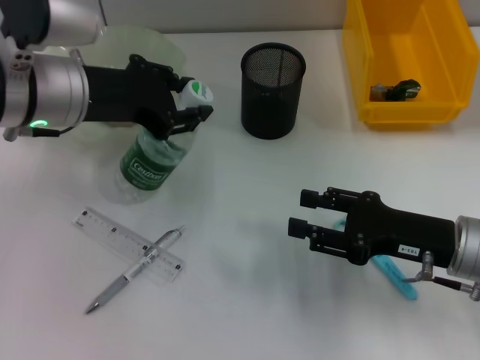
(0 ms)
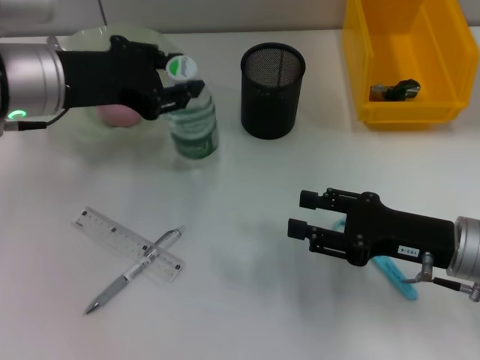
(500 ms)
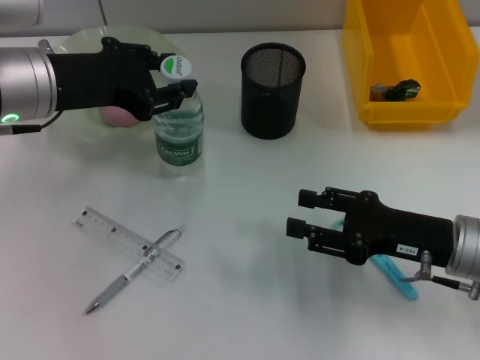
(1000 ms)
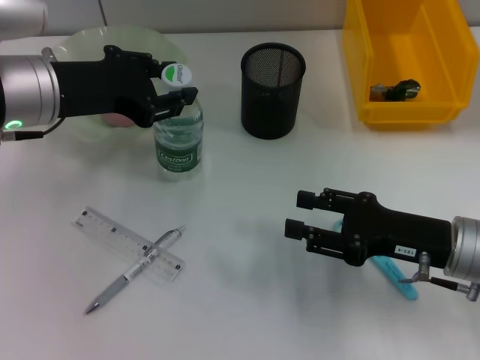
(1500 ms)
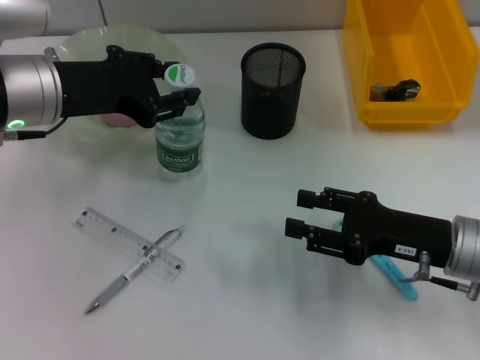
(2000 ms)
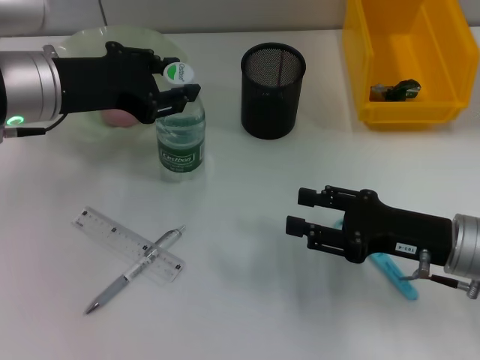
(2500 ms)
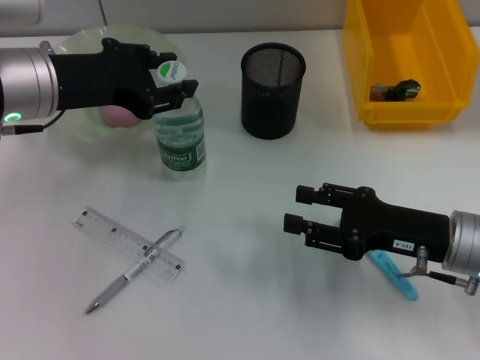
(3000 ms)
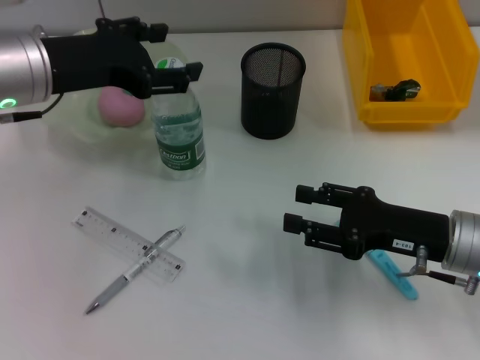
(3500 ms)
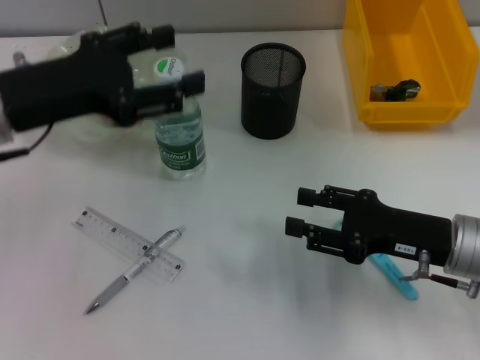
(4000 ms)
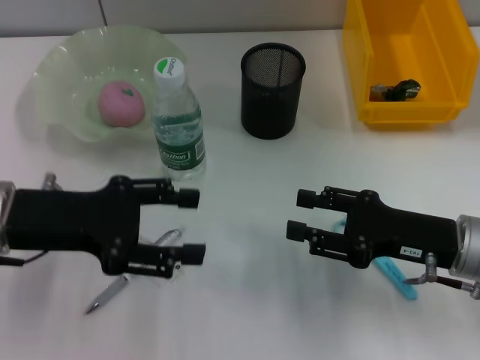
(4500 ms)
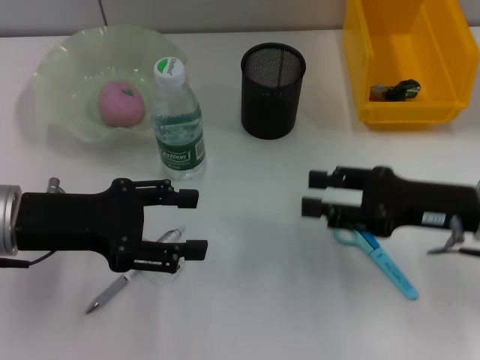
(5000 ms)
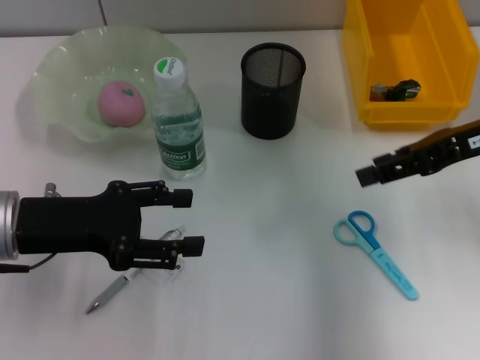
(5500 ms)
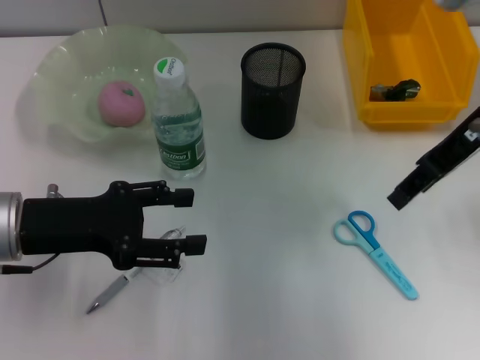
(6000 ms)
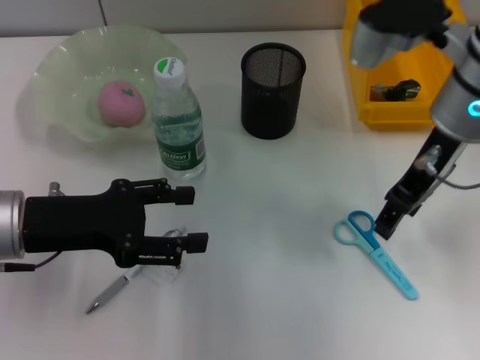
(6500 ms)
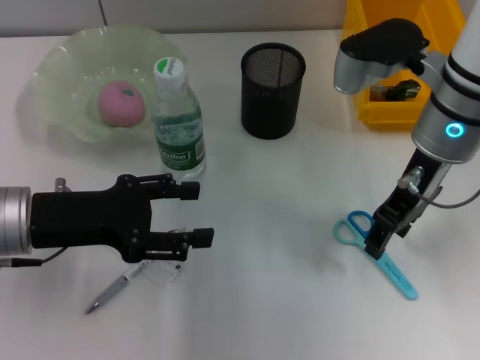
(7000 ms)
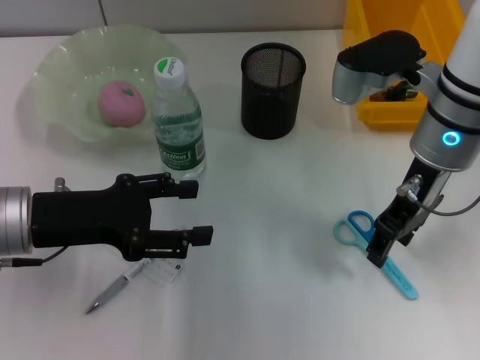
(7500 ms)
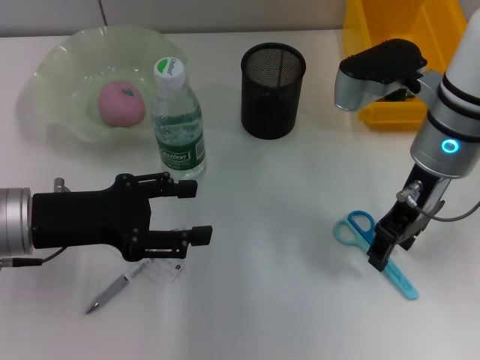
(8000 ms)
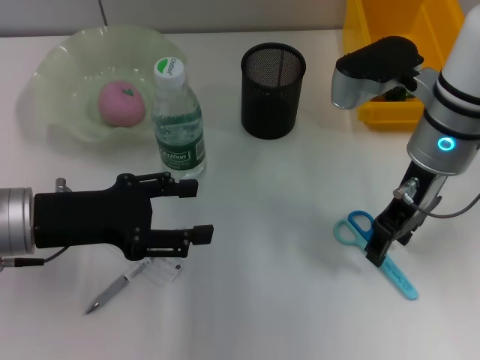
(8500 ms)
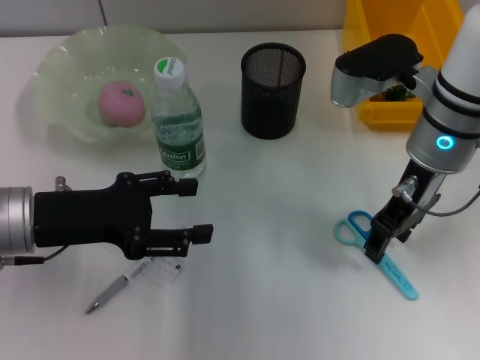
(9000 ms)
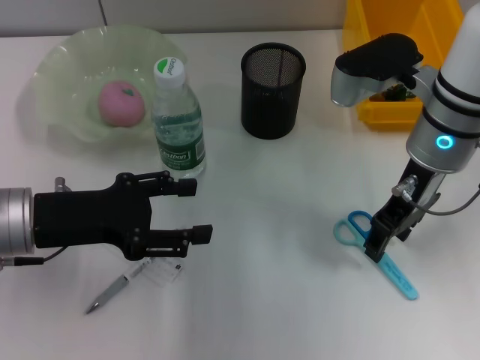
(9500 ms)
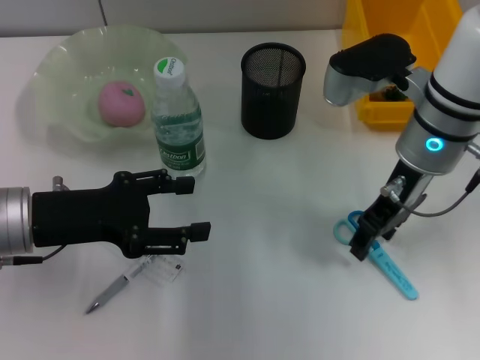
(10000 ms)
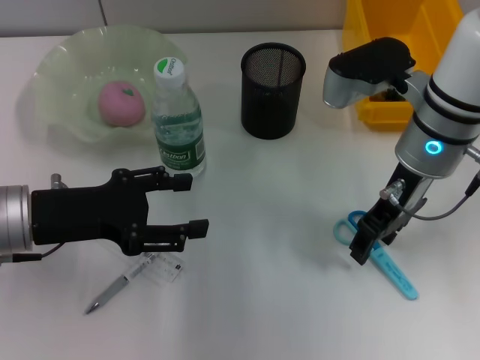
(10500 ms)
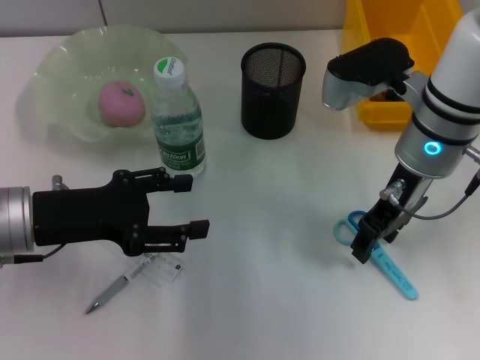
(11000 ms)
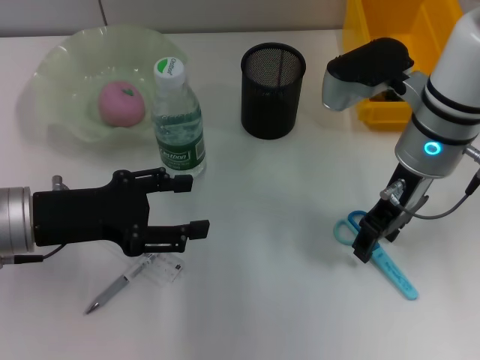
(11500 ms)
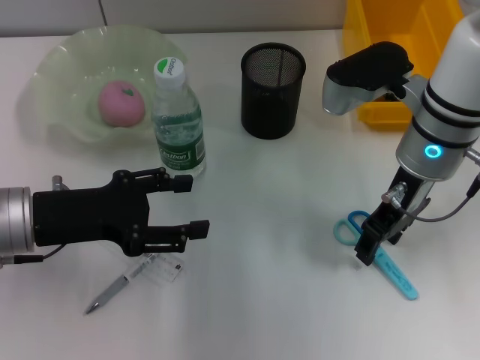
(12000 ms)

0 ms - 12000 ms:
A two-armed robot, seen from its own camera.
Step, 0 ms - 3000 ms: Place the water bottle on the table with the left hand.
0 ms - 2000 ms: The grippers move only a little.
2000 ms - 4000 ms: The left gripper opens.
4000 ms - 6000 ms: The right gripper travels upward and forward by roughly 20 cm, while the left gripper goes approximately 5 cm downward.
6000 ms - 8000 ms: The right gripper is displaced downward and to the left by about 10 cm.
8000 ms - 12000 ms: Both grippers stay about where they are.

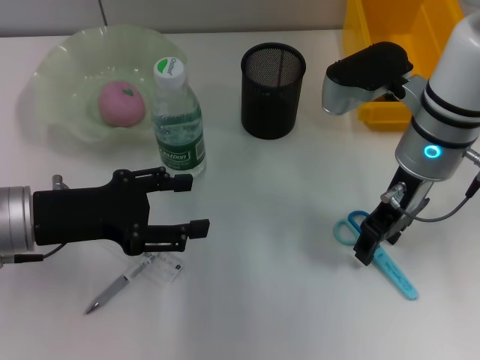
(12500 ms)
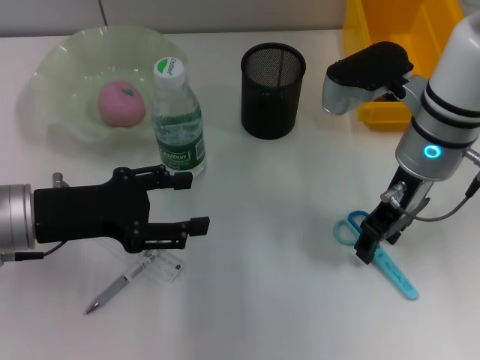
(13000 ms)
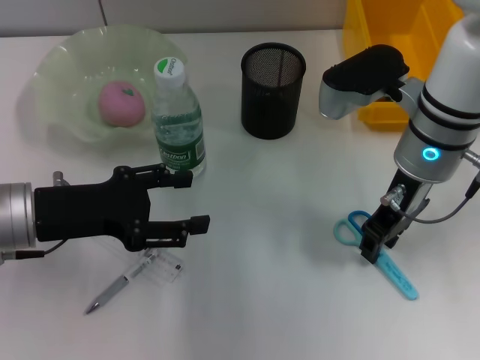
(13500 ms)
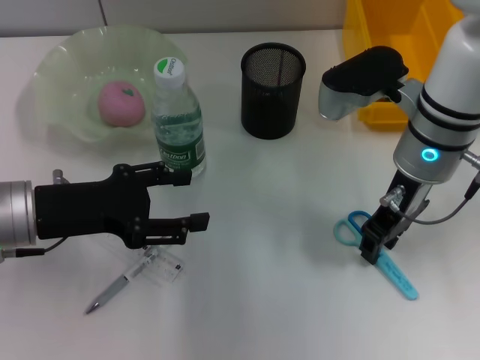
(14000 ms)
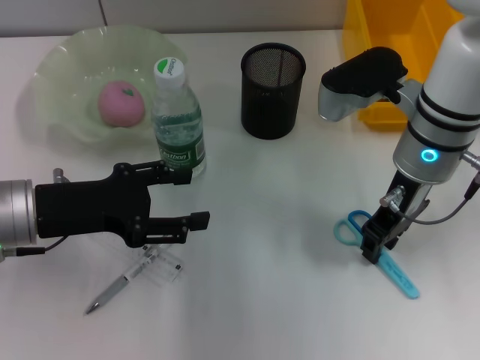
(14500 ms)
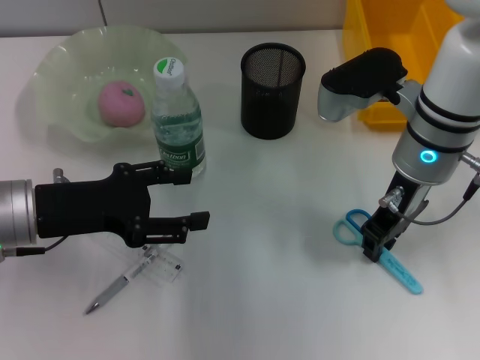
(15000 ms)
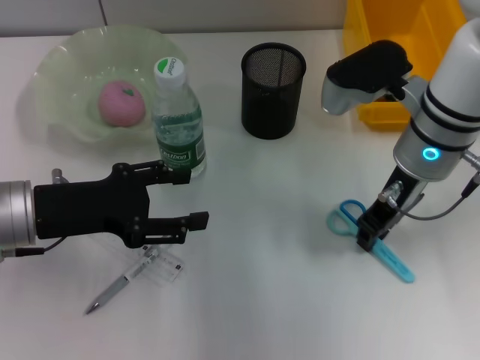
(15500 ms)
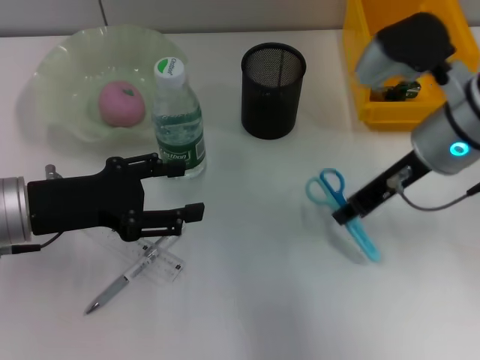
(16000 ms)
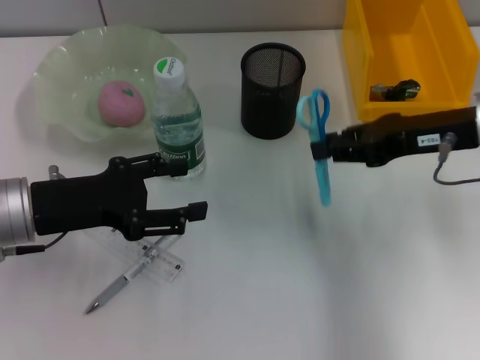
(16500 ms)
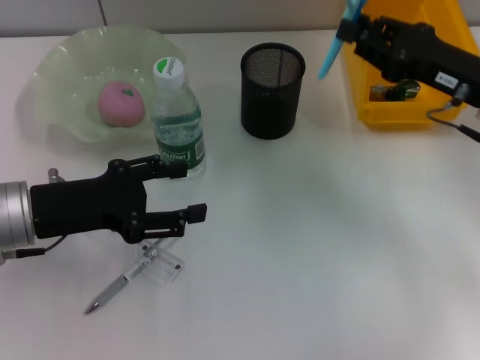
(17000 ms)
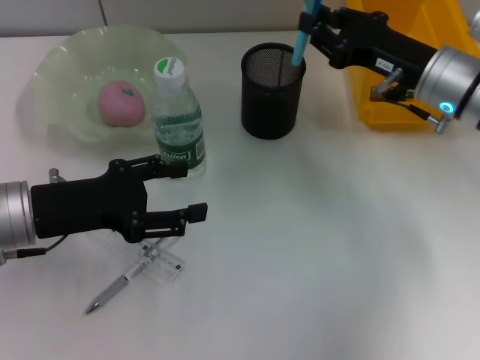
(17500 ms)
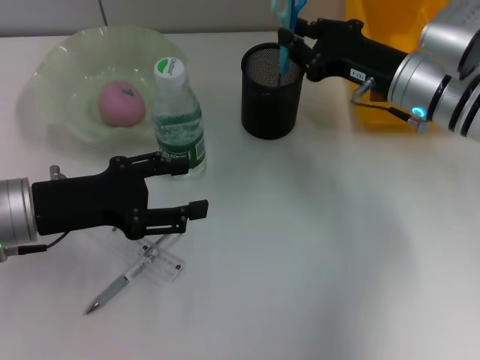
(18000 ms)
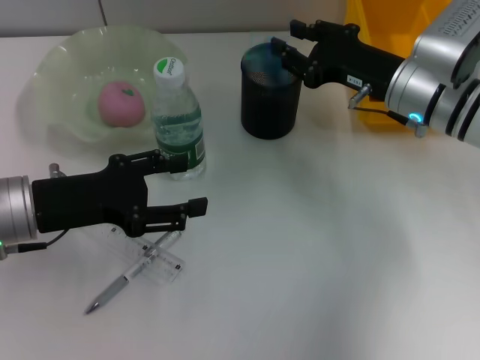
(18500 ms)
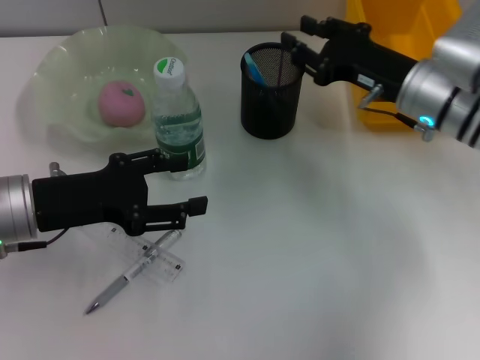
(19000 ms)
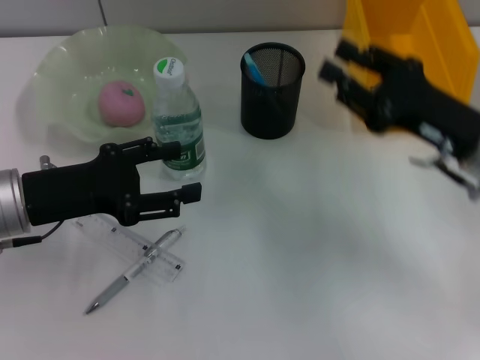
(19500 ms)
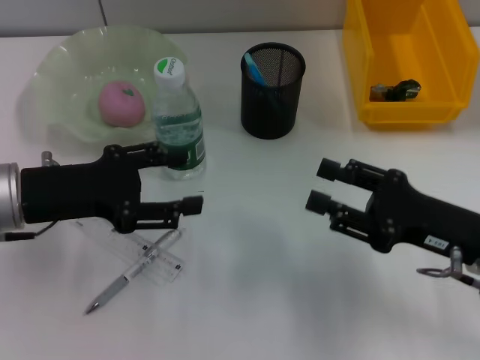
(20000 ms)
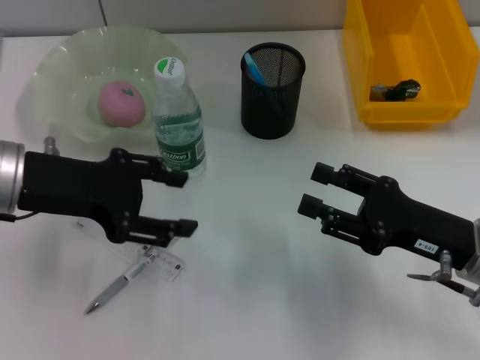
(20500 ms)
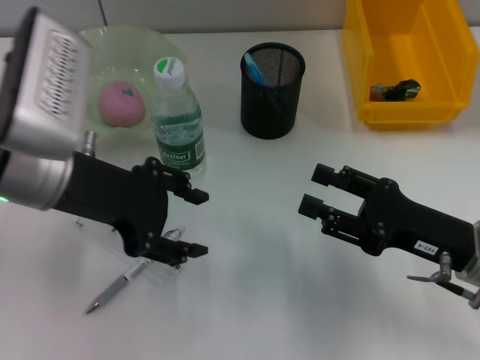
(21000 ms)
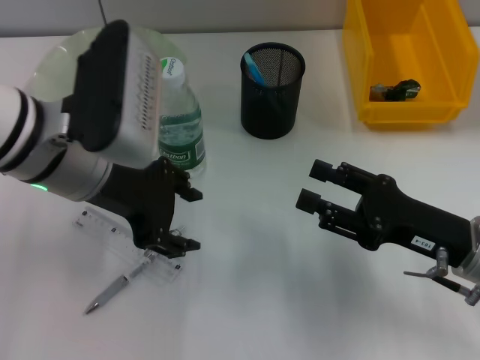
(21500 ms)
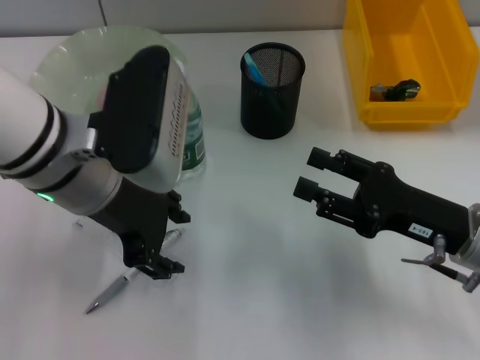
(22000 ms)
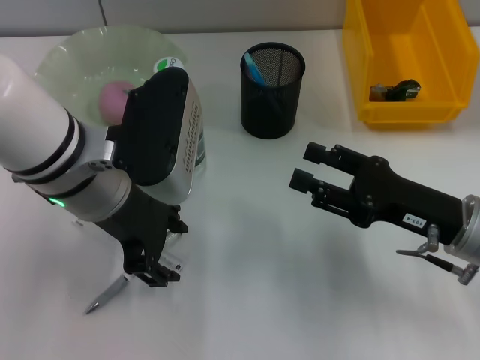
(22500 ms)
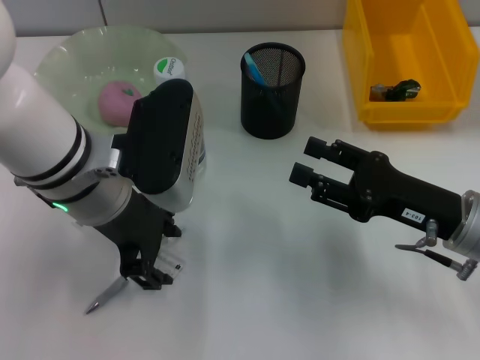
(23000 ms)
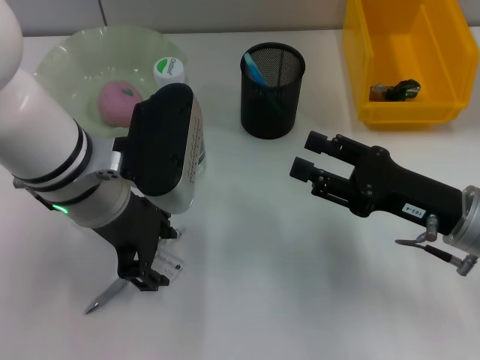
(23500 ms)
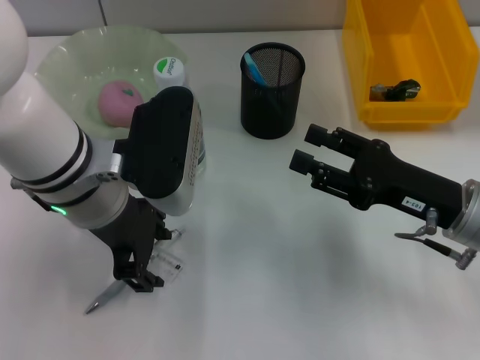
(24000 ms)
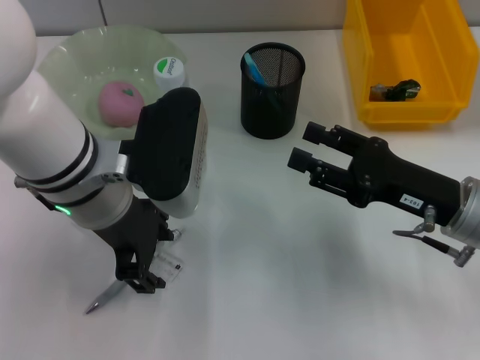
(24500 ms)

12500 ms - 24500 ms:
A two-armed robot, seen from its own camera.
Step, 12500 ms - 14500 ms: Grab the blue scissors with the right hand.
Step, 15000 ms - 18500 ms: Place the blue scissors into the pen holder with the right hand.
12500 ms - 14500 ms: The right gripper closes.
14500 ms - 16500 ms: The right gripper heads to the right, covering approximately 10 cm.
16500 ms - 18500 ms: The right gripper heads downward and forward, covering about 10 cm.
18500 ms - 20500 ms: The right gripper moves backward, about 15 cm, and opens; the left gripper is displaced upward by roughly 5 cm.
20500 ms - 22500 ms: The left gripper travels to the right by some 10 cm.
22500 ms - 24500 ms: The grippers move only a little.

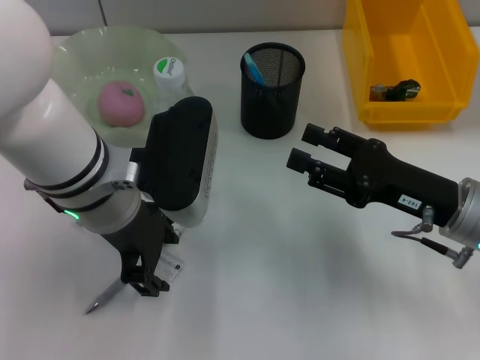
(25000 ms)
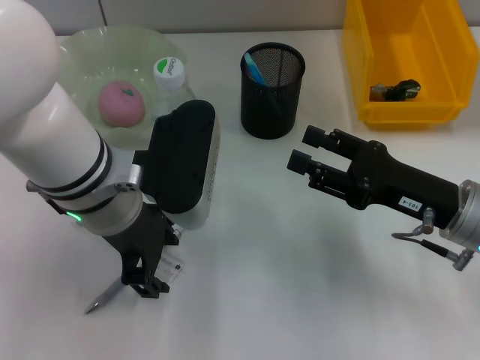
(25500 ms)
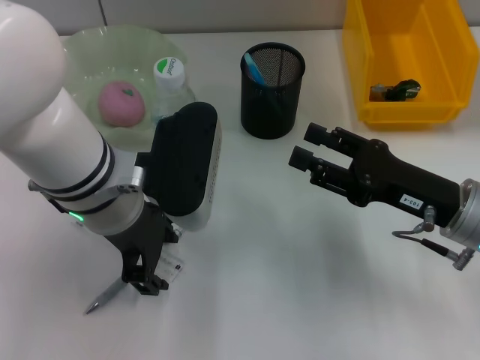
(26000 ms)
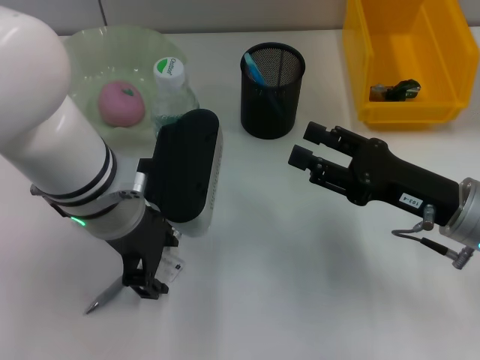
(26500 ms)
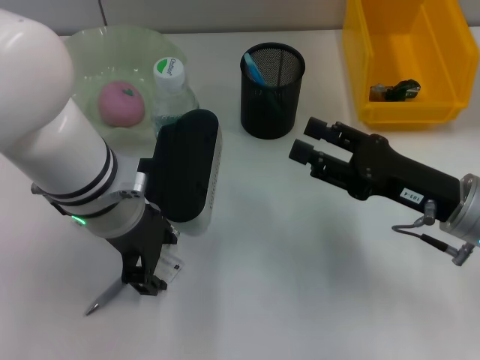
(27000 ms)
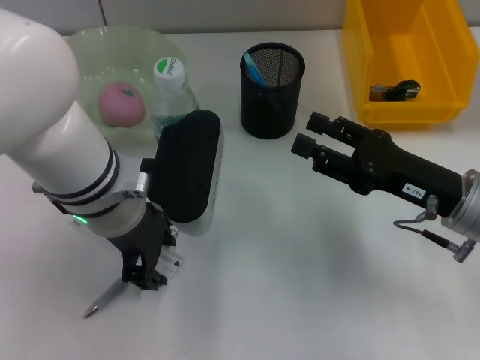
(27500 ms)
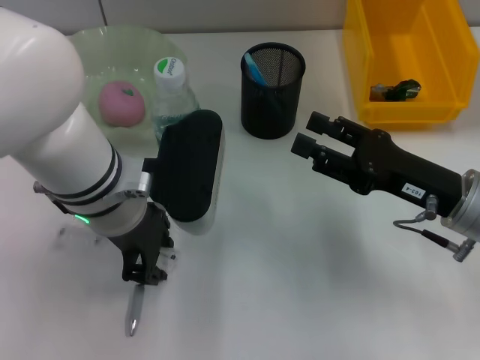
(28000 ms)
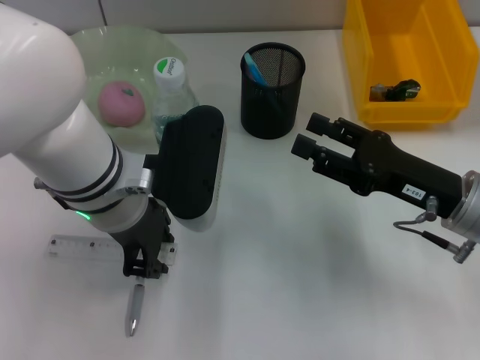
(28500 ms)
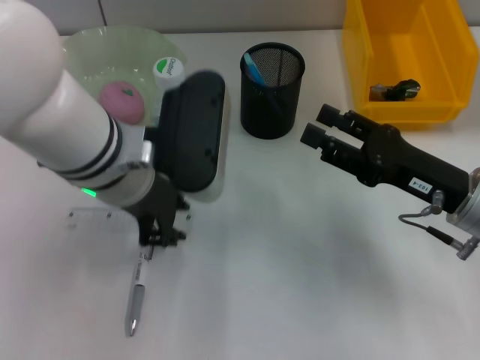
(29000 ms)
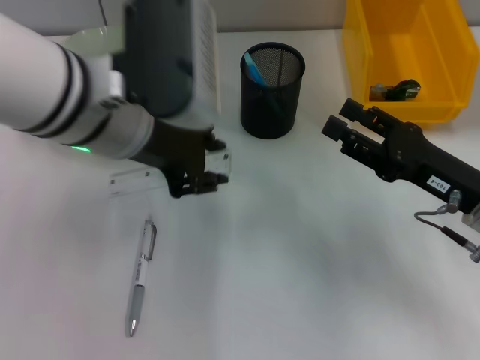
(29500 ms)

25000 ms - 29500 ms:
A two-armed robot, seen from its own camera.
Step, 25000 ms - 28500 ms: Grab the ruler with the left hand.
25000 ms - 27000 ms: The two grippers keep their place.
27000 ms - 29500 ms: The left gripper moves upward, approximately 10 cm, and closes its fingers.
